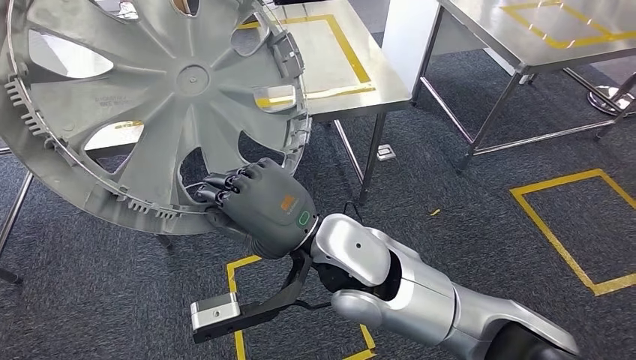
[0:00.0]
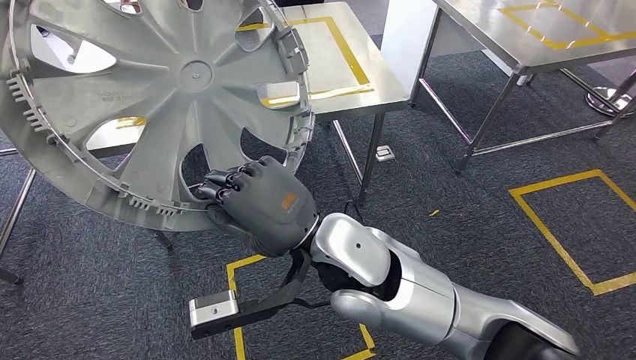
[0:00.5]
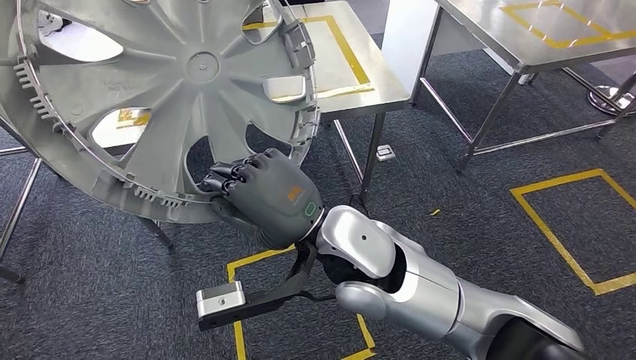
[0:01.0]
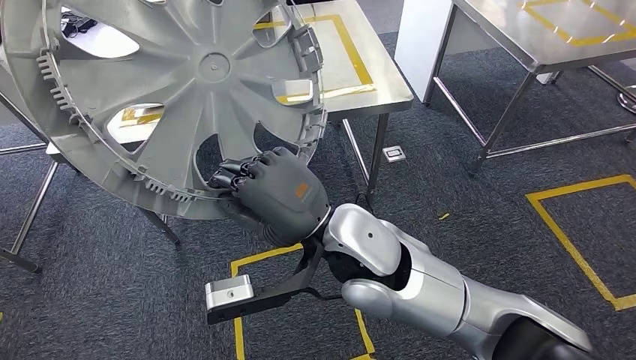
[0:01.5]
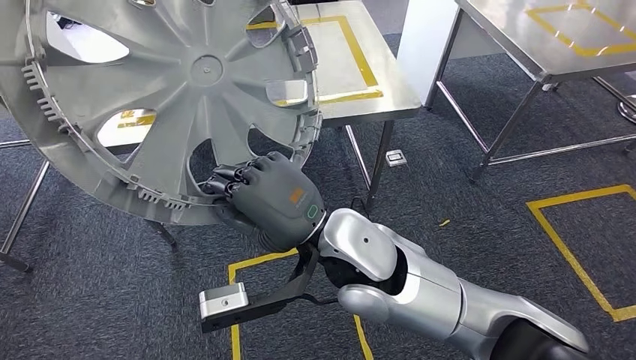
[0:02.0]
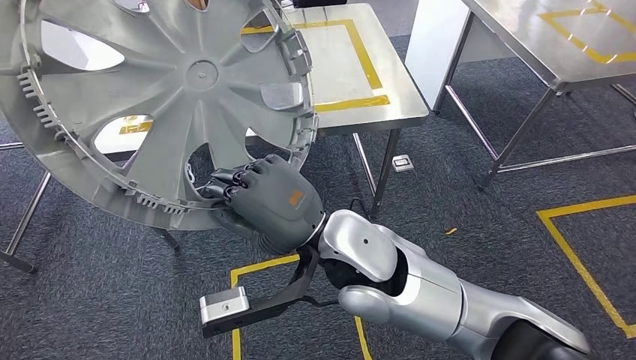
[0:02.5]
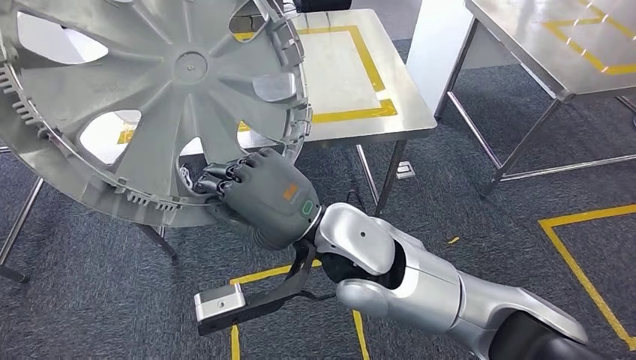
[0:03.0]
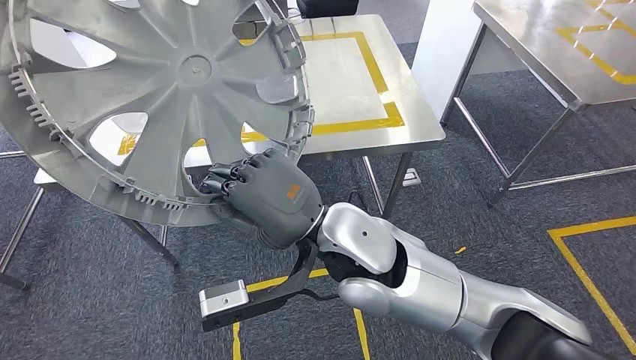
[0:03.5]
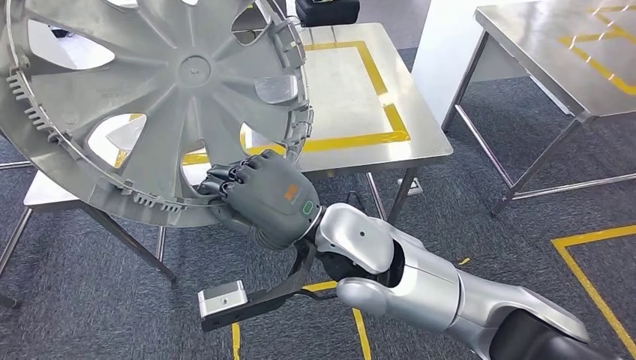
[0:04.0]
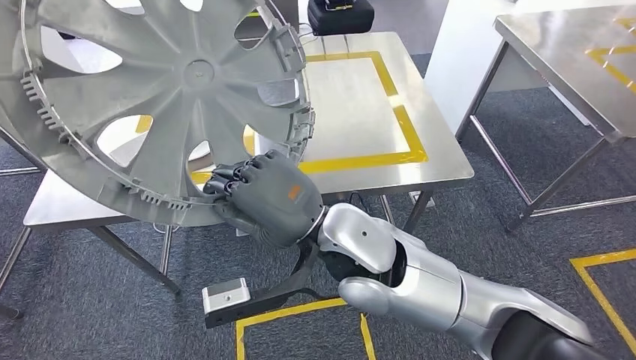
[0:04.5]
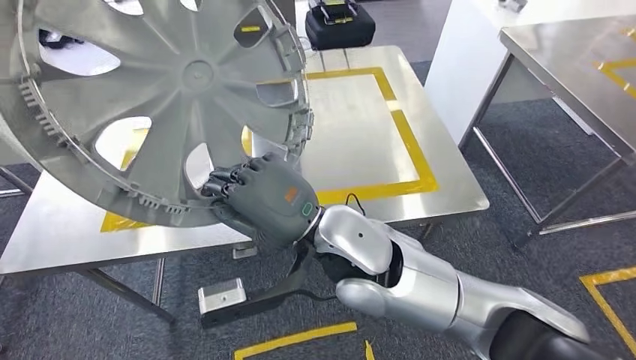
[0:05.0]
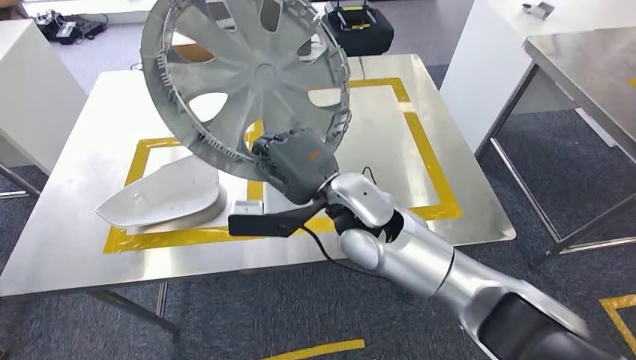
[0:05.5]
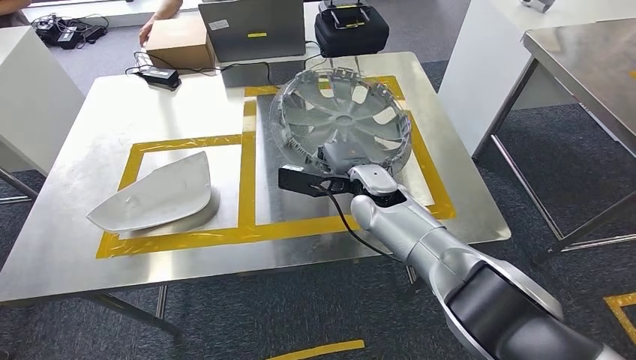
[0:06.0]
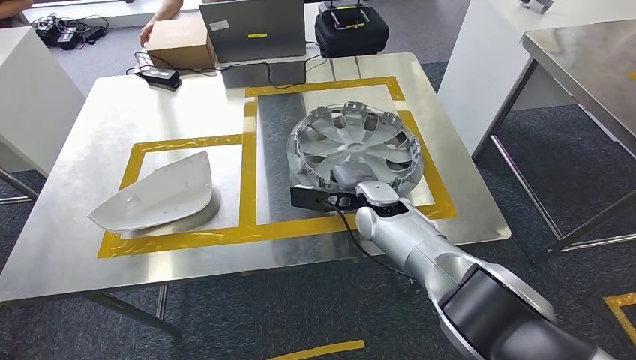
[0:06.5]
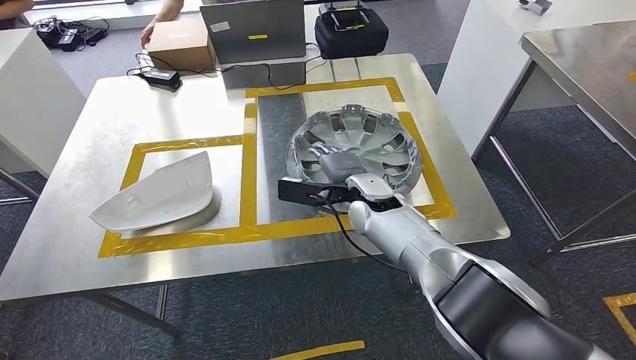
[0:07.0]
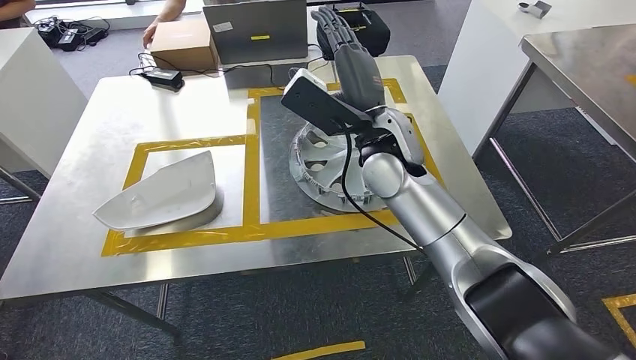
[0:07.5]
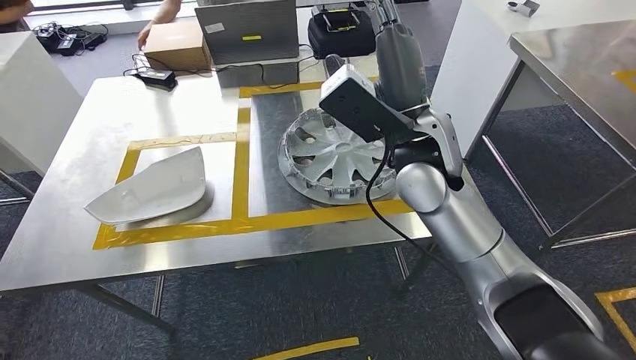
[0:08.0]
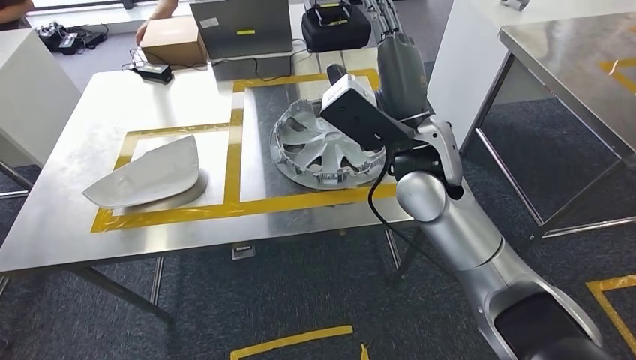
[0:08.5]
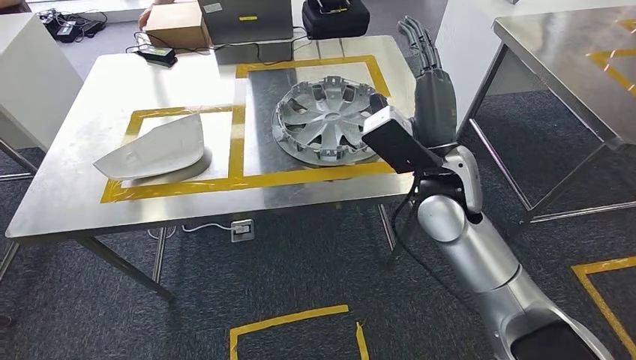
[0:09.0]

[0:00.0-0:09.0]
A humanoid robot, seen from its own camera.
Step, 0:01.5 to 0:08.0: Insert the small parts into the corresponding slots on the workbench.

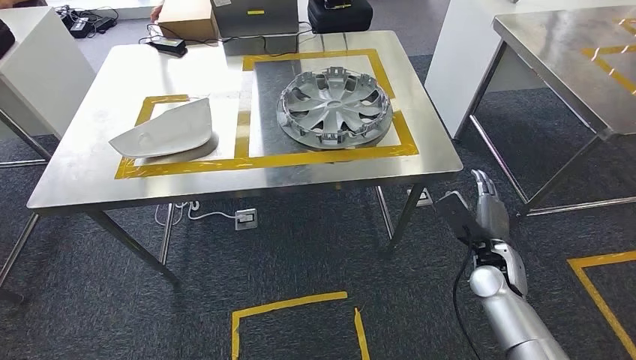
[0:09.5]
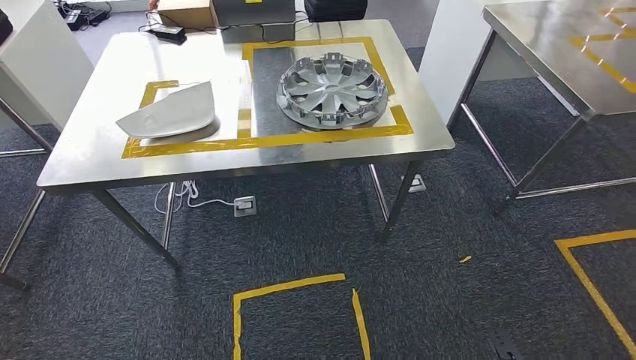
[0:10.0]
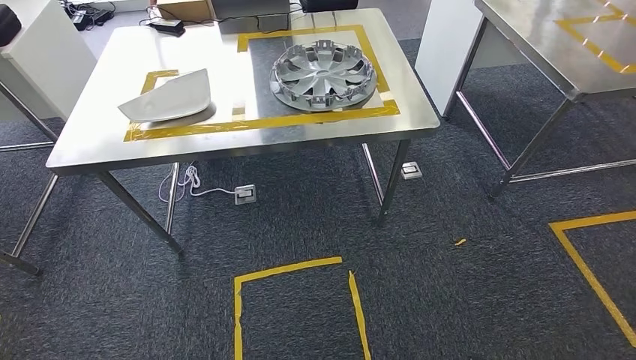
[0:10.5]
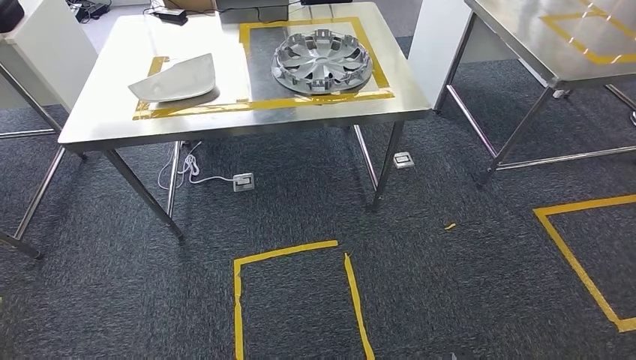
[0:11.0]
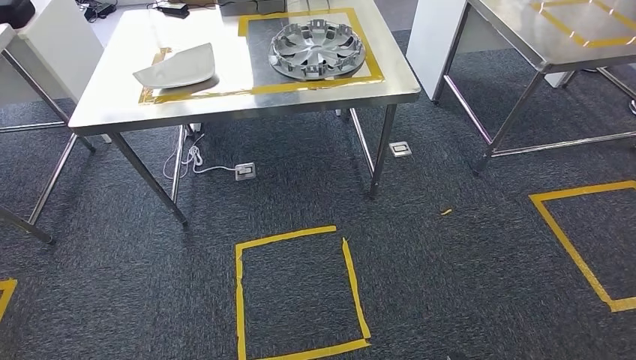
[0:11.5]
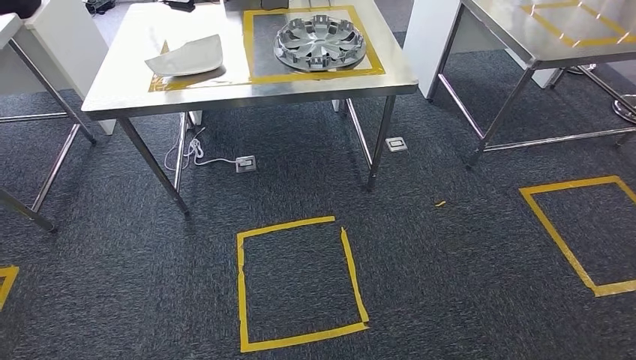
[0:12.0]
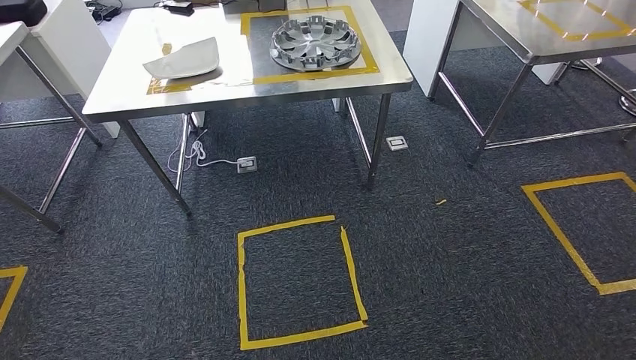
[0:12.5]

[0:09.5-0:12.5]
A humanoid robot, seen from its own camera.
Step, 0:10.5 to 0:12.5: Return to the initial position at the workbench.

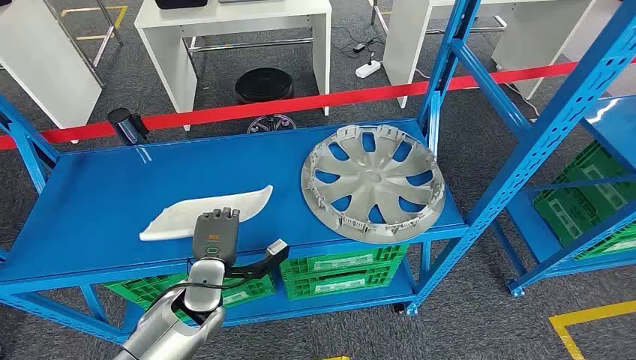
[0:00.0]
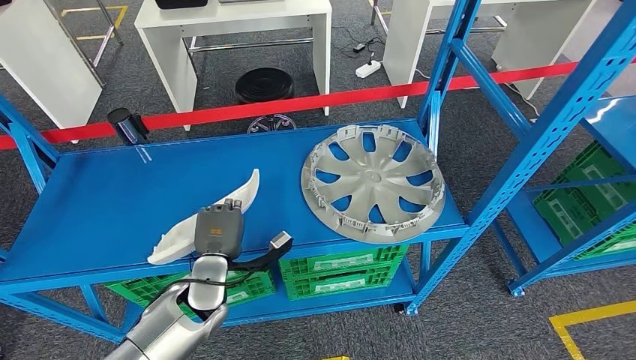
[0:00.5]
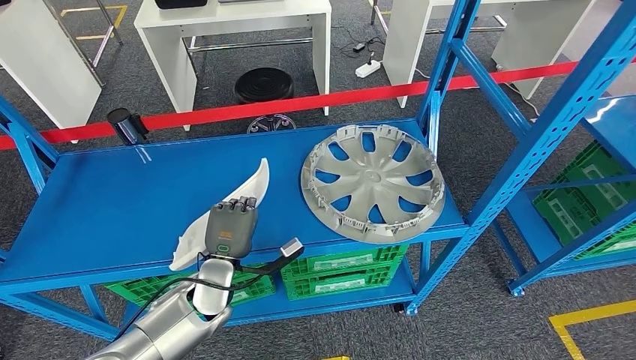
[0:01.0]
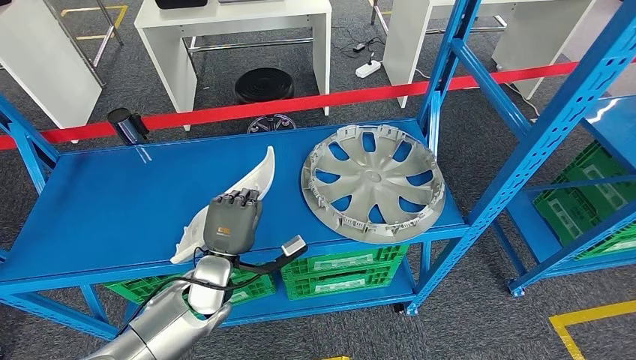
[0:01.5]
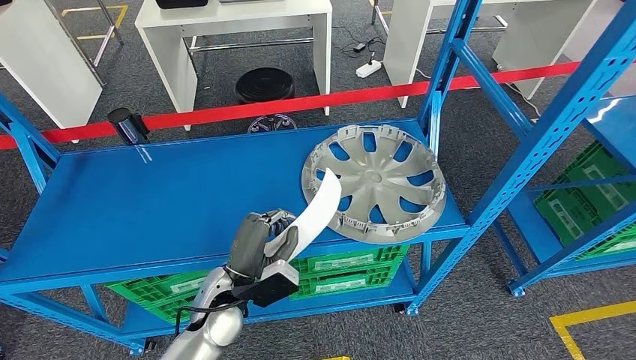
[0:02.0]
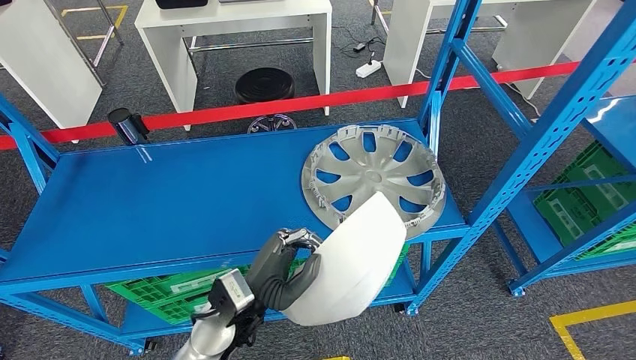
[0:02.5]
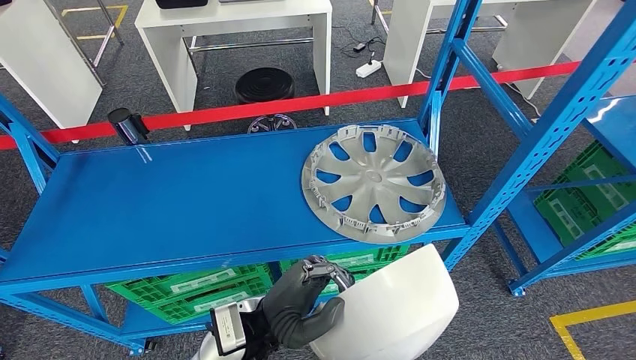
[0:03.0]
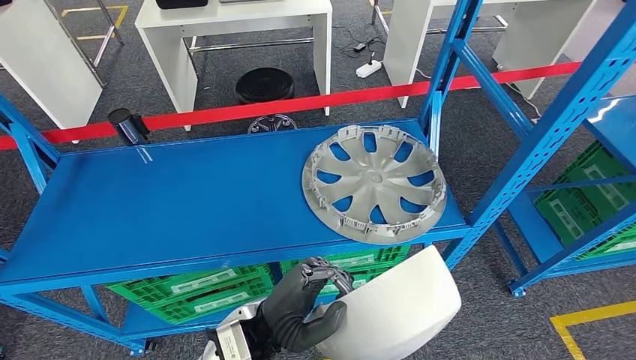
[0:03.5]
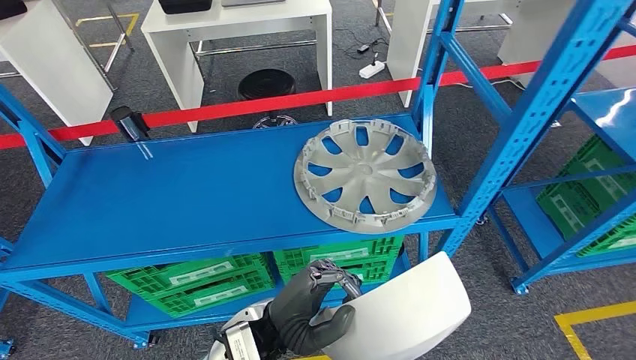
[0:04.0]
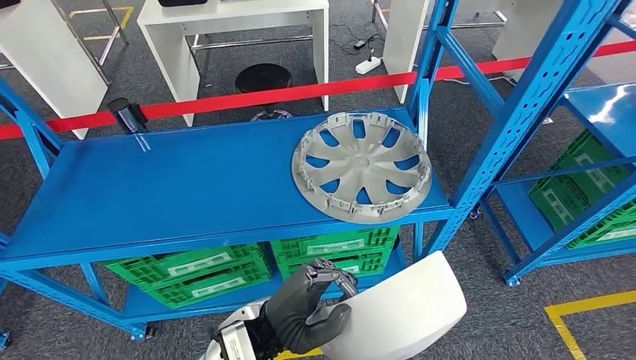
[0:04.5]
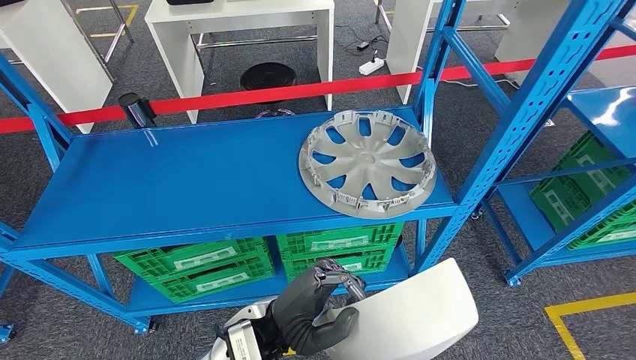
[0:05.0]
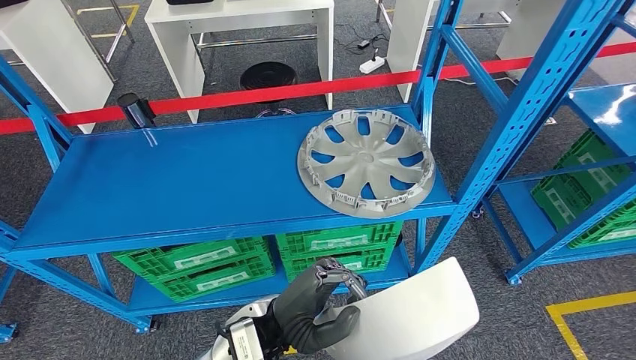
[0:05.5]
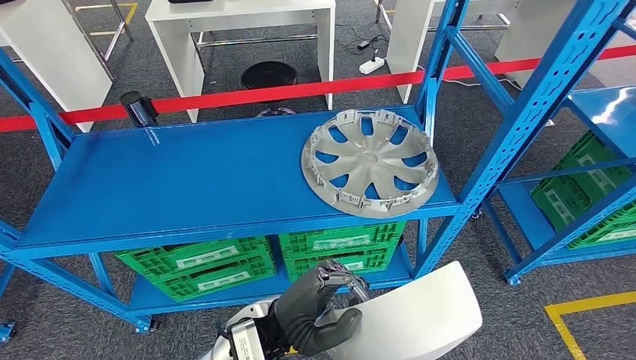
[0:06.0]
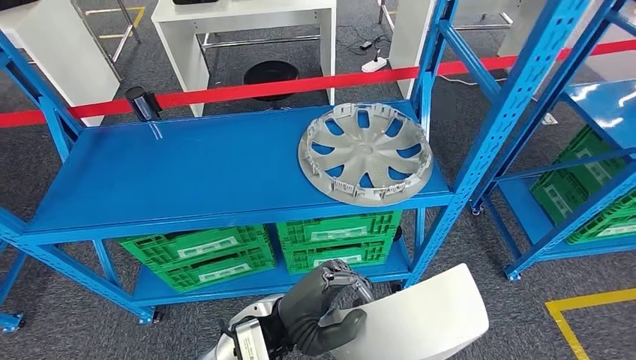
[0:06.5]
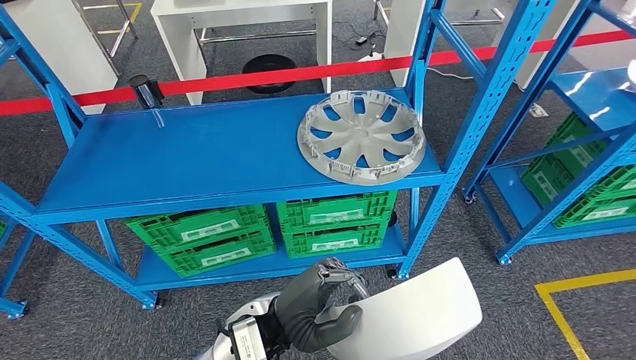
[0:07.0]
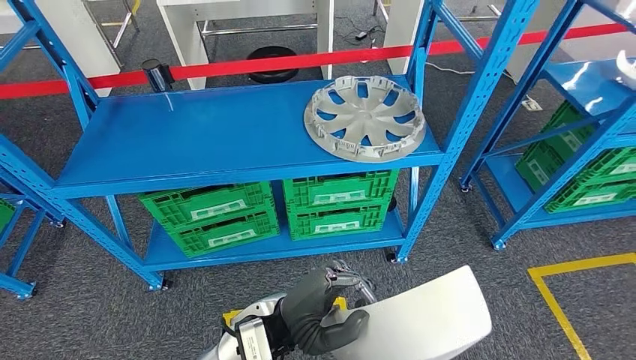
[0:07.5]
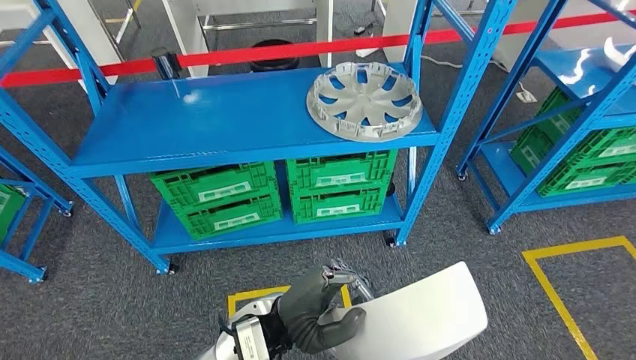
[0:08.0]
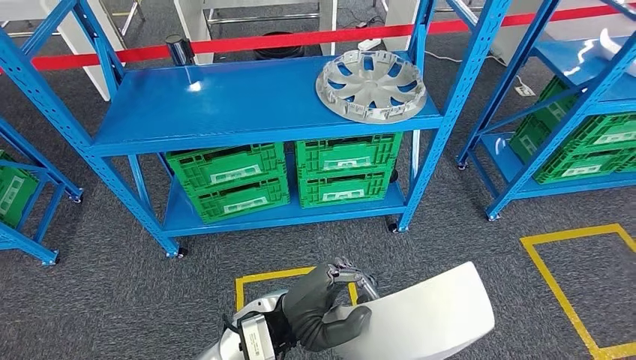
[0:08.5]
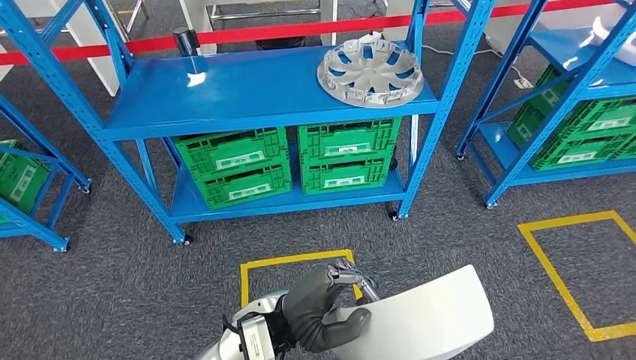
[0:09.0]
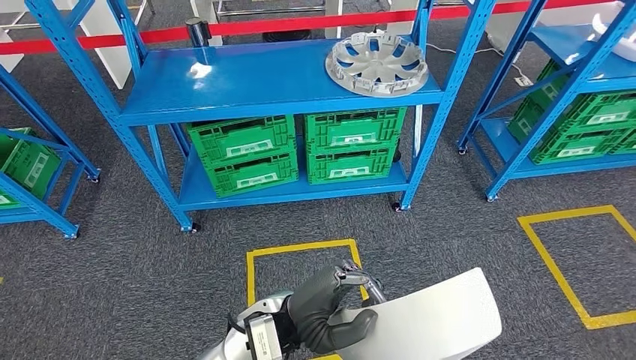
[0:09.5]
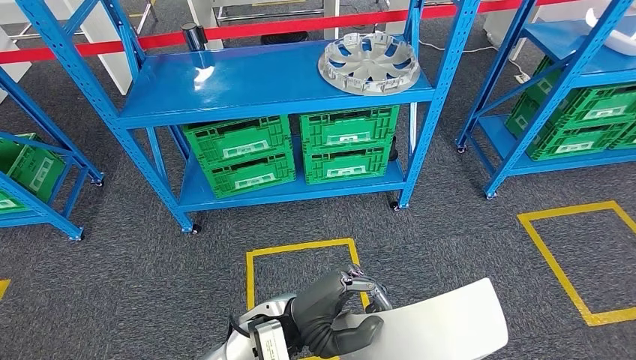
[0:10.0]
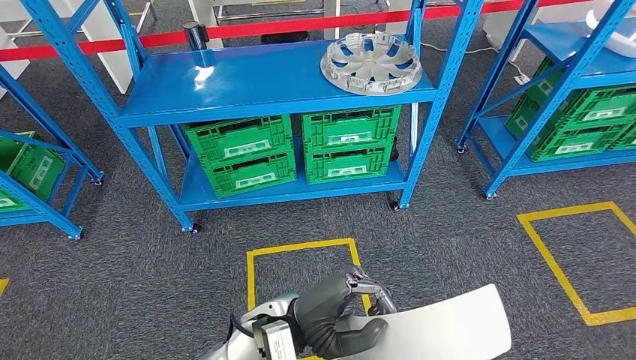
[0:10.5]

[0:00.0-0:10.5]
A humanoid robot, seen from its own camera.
Step, 0:00.0 to 0:03.0: Pick up the small parts from the shelf.
